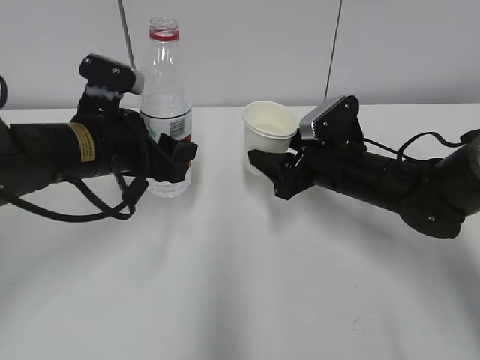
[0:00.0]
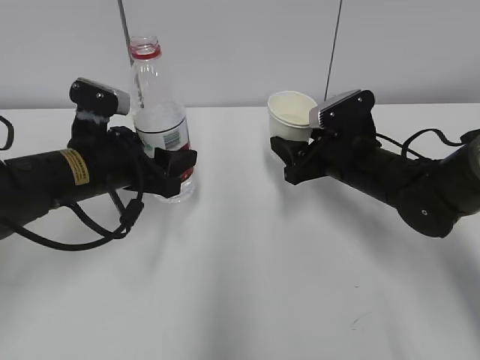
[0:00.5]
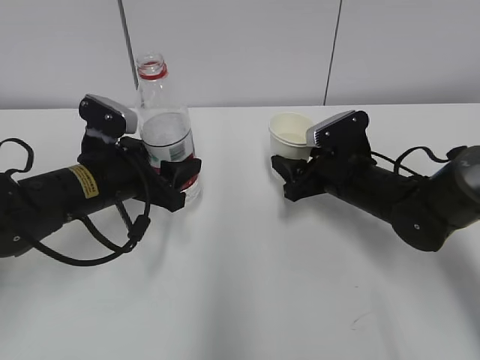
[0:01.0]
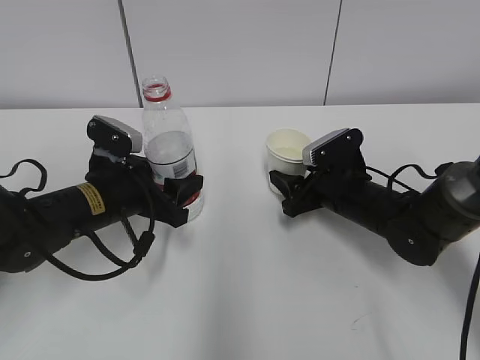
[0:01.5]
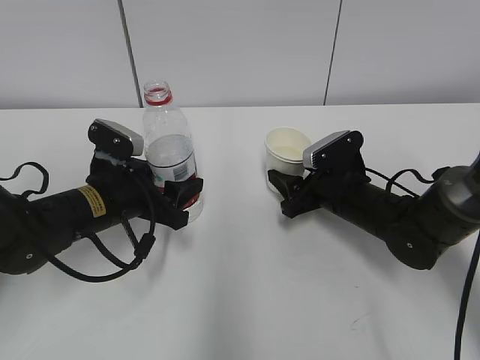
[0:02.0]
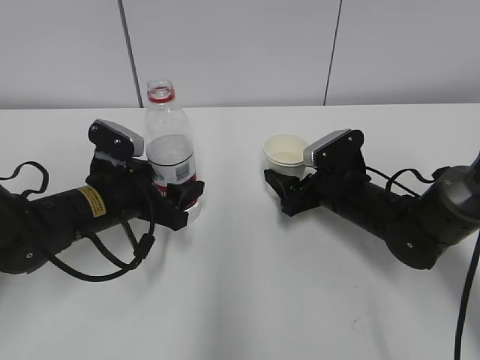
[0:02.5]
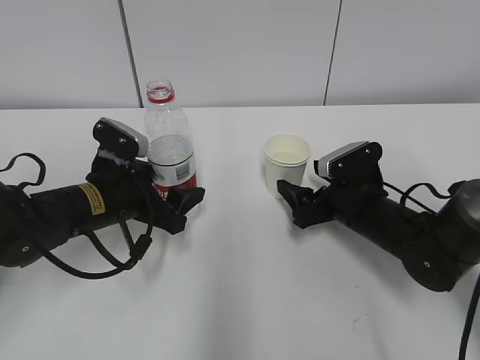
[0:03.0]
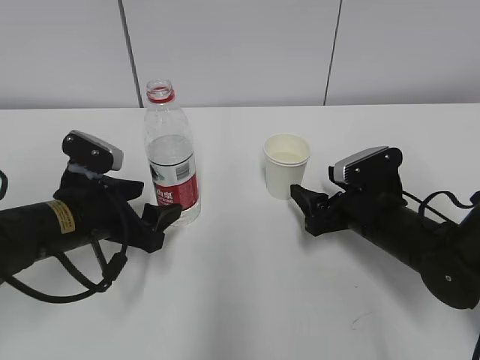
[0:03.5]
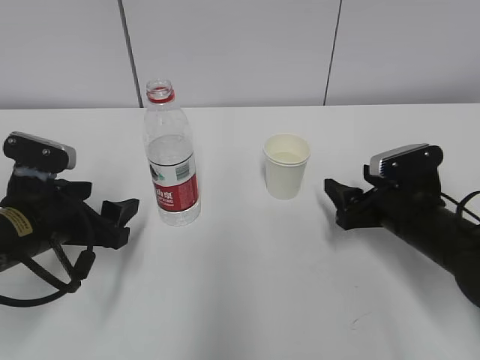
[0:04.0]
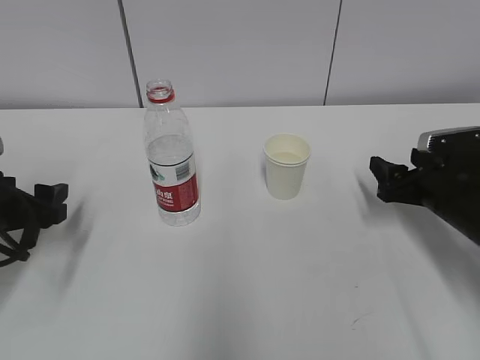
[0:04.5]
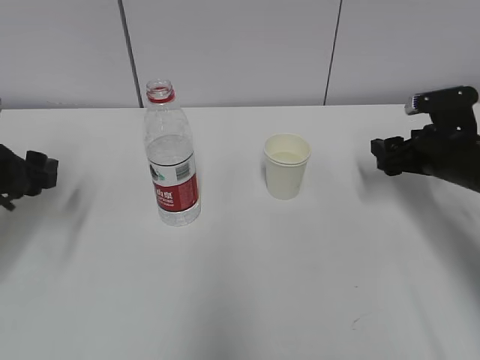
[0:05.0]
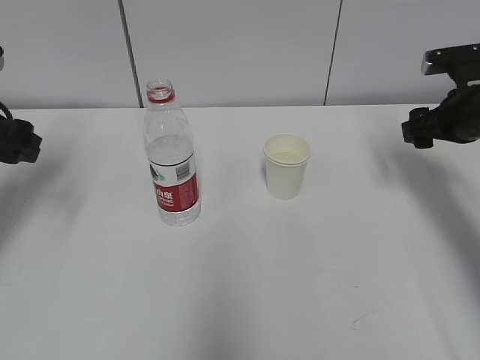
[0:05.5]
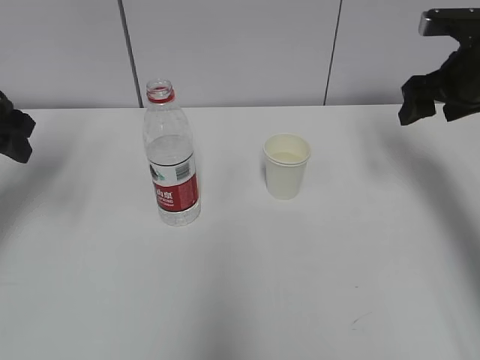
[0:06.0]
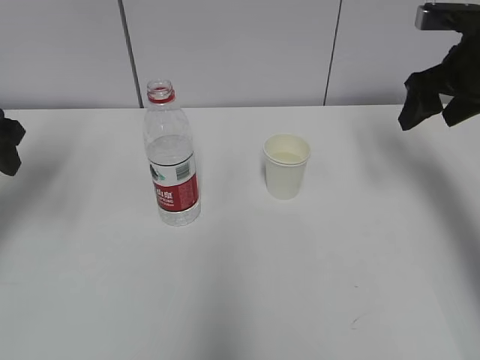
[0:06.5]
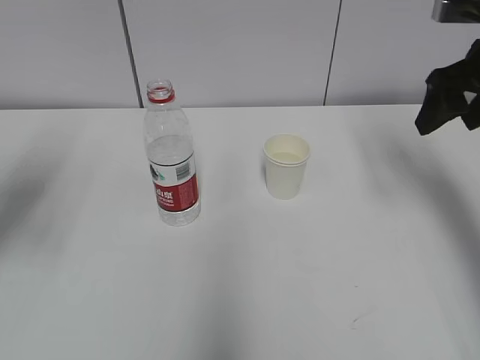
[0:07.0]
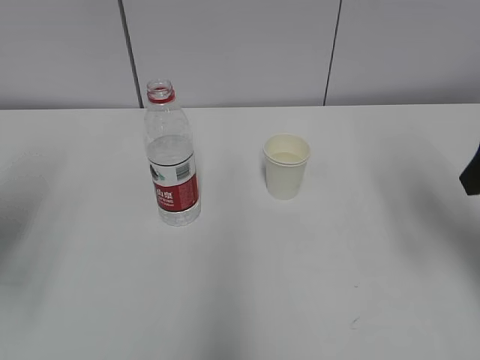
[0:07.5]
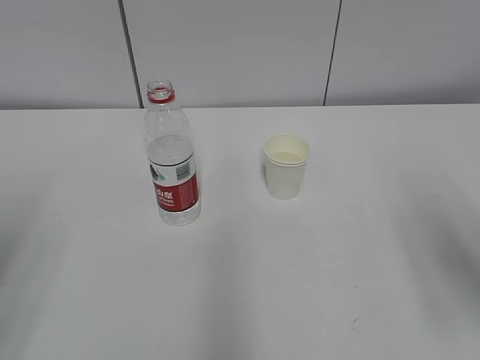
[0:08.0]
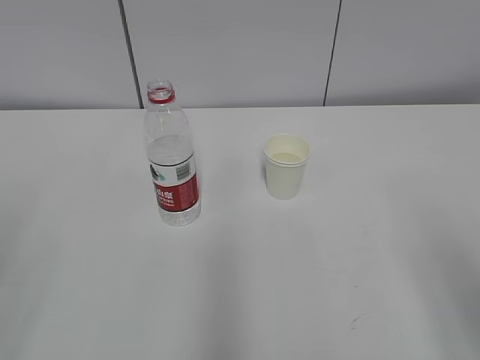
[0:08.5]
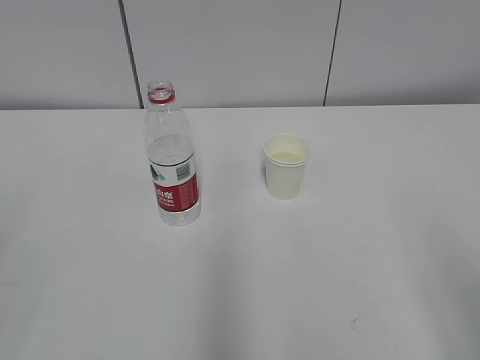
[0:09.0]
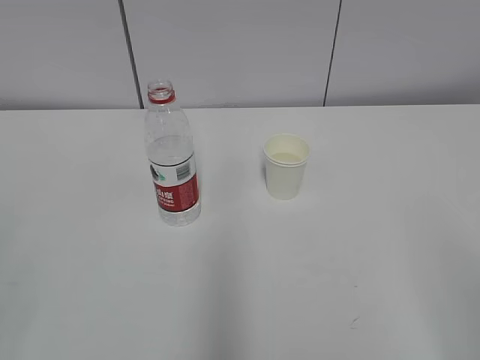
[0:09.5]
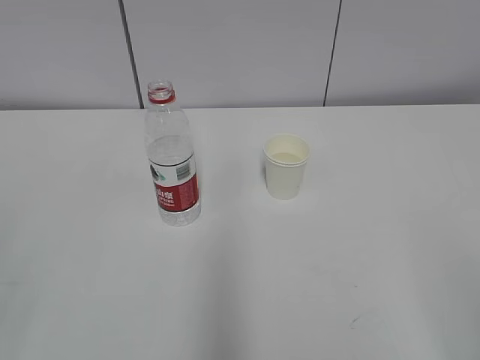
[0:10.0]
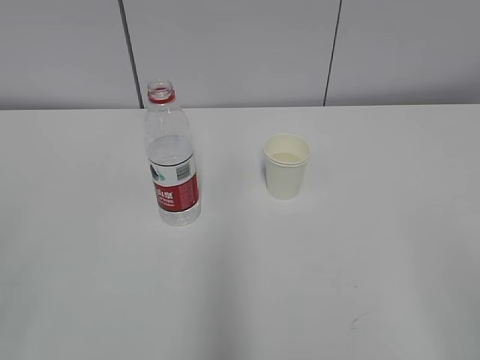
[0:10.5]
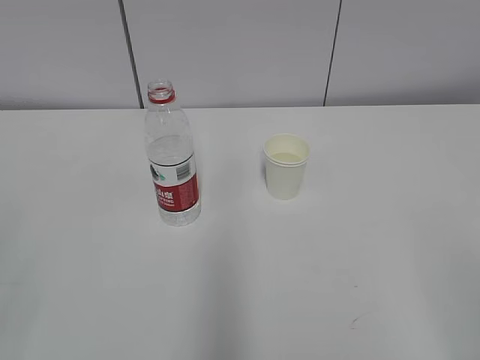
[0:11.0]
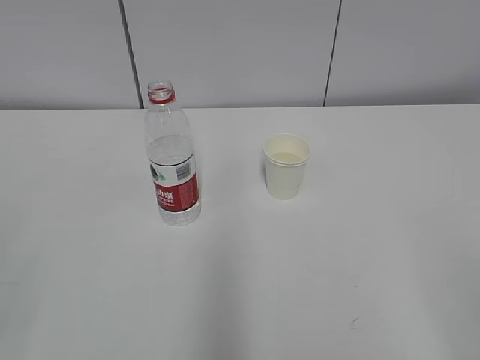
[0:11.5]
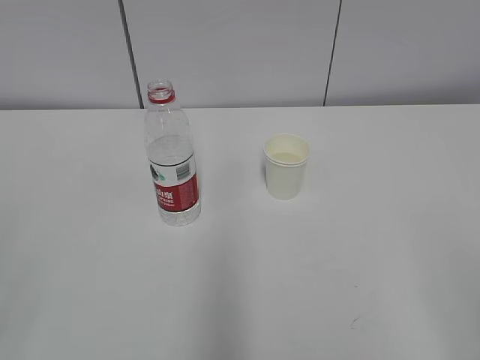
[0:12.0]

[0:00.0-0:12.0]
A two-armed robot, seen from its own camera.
0:00.0 to 0:02.0: The right gripper travels downward by approximately 5 cm; the left gripper heads downward, covering roughly 10 cm.
0:02.0 to 0:04.0: The left gripper goes roughly 10 cm backward and to the left, and opens. The right gripper travels backward by some 5 cm, and opens.
0:04.0 to 0:06.0: The left gripper heads upward, to the left and forward, covering some 20 cm. The right gripper travels upward, forward and to the right by about 20 cm.
0:06.0 to 0:08.0: The two grippers go approximately 20 cm backward.
0:08.0 to 0:10.0: The right gripper moves backward, about 20 cm.
0:10.0 to 0:12.0: Both grippers stay about where they are.

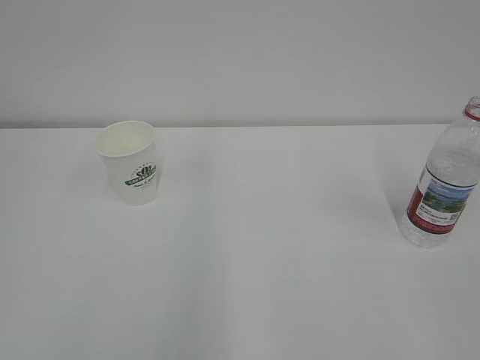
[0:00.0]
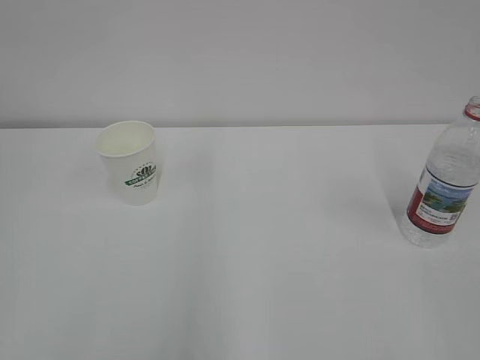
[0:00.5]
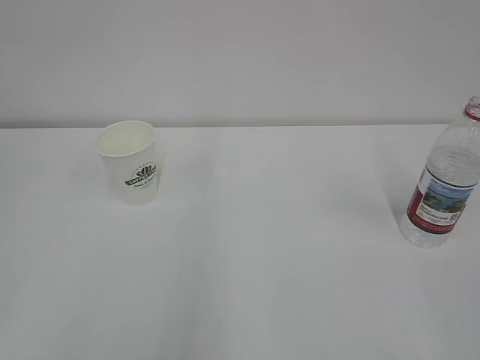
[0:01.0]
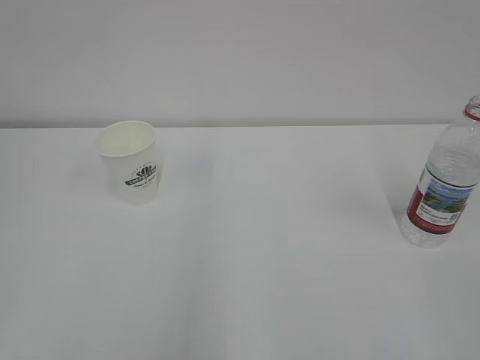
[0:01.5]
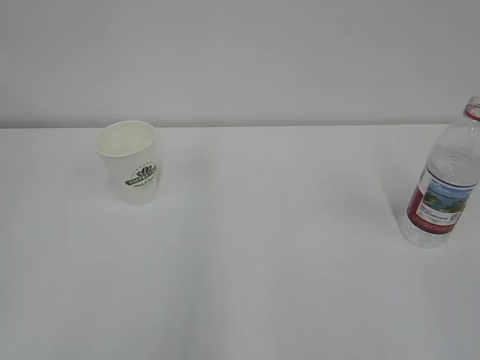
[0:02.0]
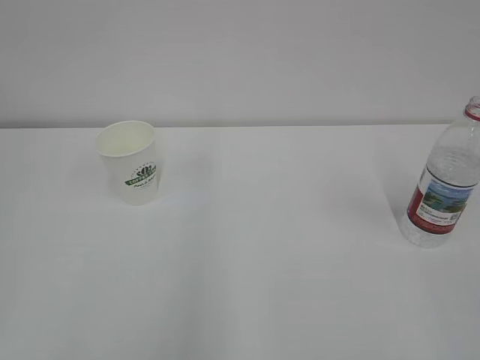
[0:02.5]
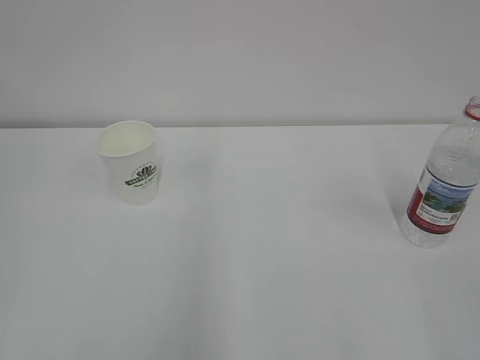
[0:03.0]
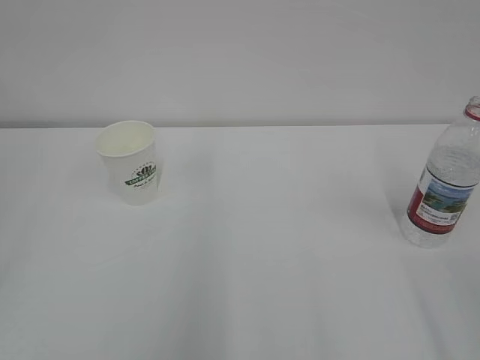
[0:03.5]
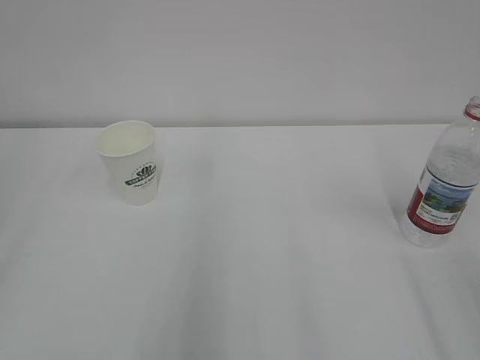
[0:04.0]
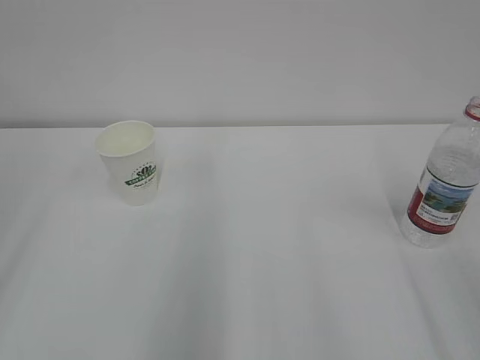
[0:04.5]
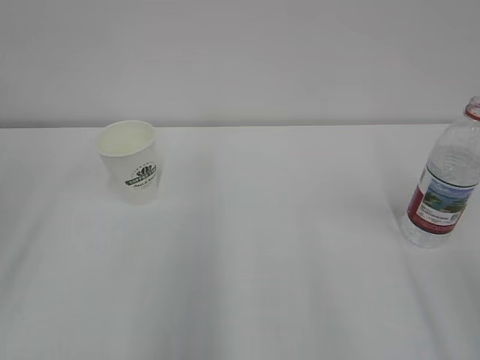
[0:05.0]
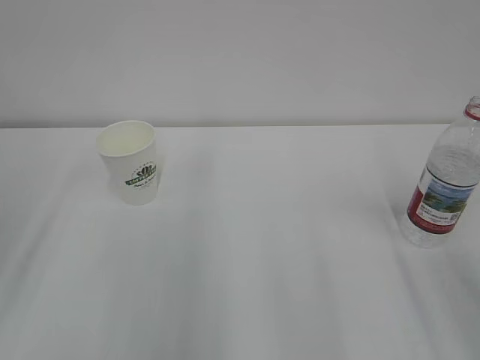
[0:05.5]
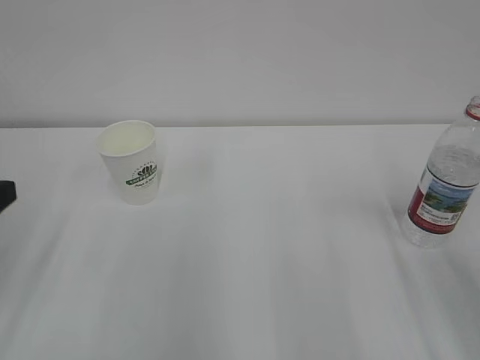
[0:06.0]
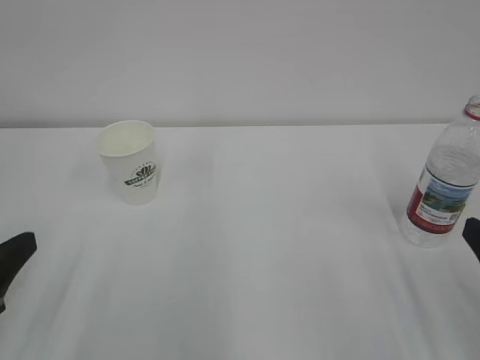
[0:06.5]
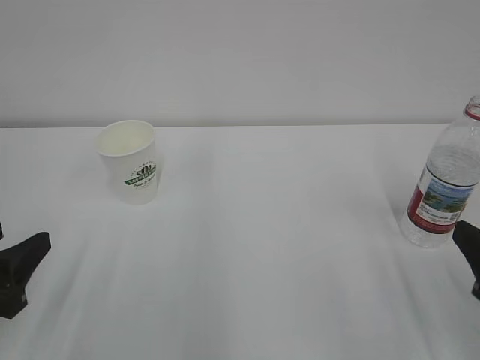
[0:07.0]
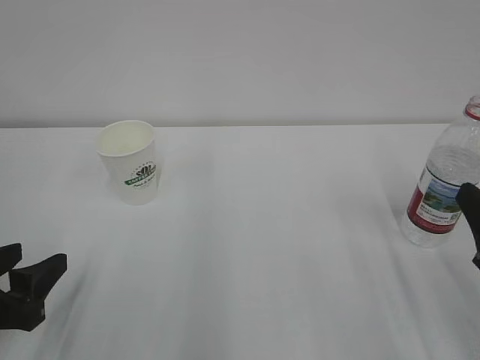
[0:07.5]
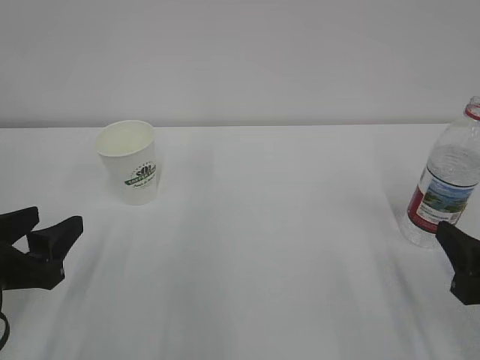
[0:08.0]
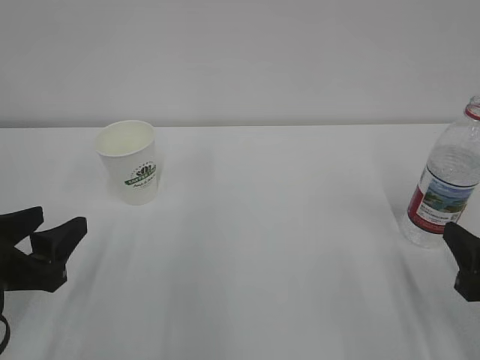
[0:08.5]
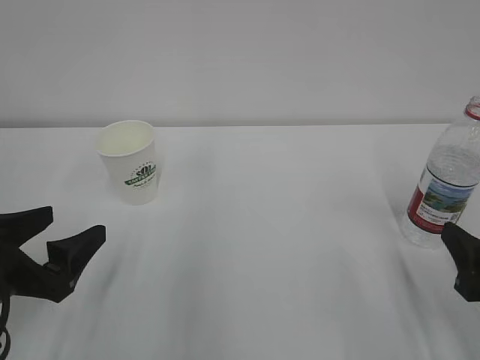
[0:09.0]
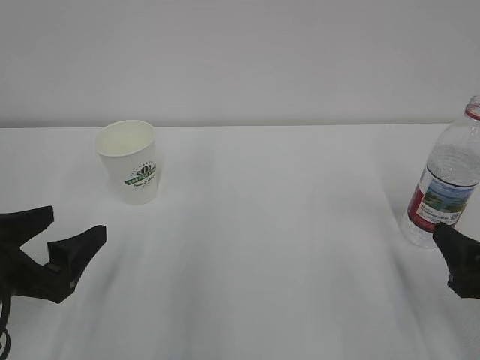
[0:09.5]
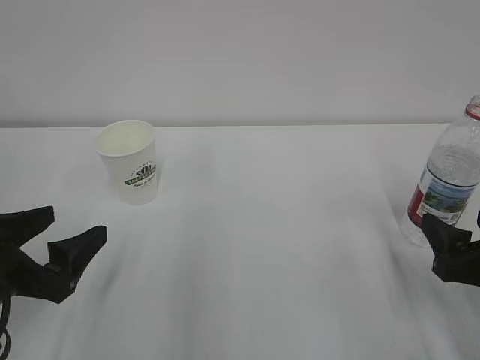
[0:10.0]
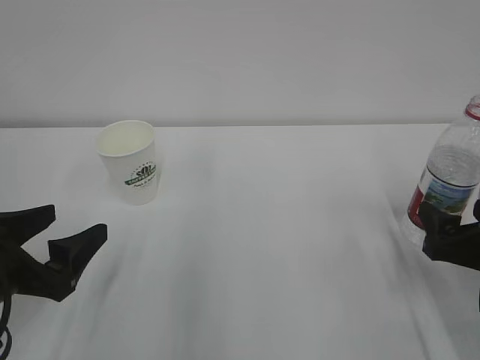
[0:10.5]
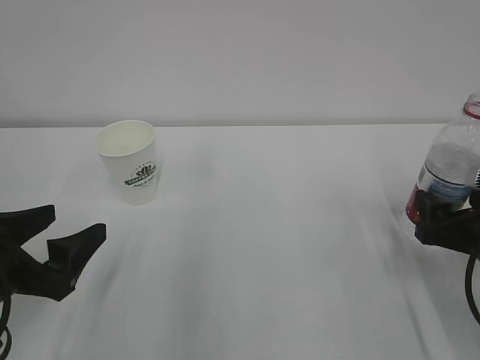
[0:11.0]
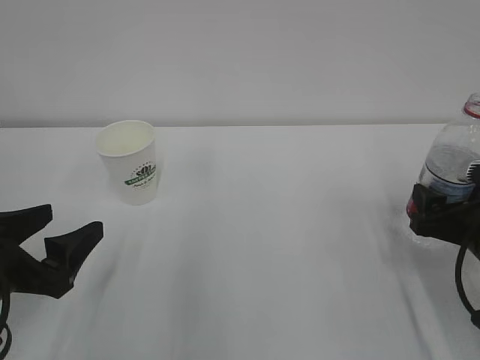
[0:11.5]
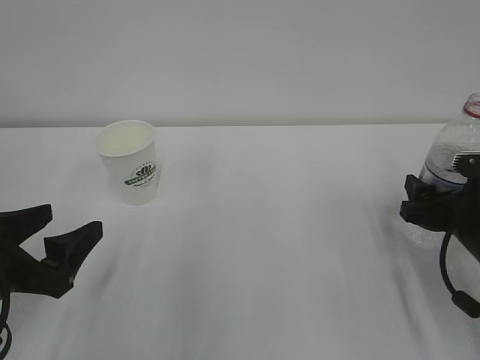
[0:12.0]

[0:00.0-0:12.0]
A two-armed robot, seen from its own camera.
0:06.0 to 0:08.0: Both grippers move downward, approximately 10 cm.
0:08.0 to 0:10.0: The left gripper opens its fingers. The right gripper opens.
0:10.0 to 0:12.0: The right gripper travels forward by about 10 cm.

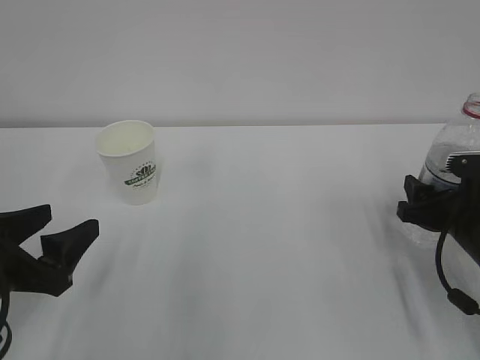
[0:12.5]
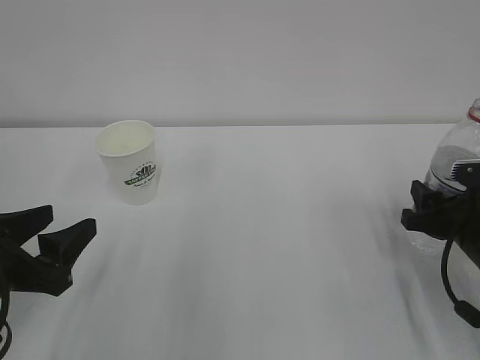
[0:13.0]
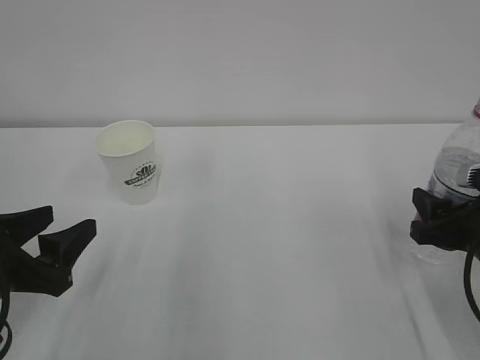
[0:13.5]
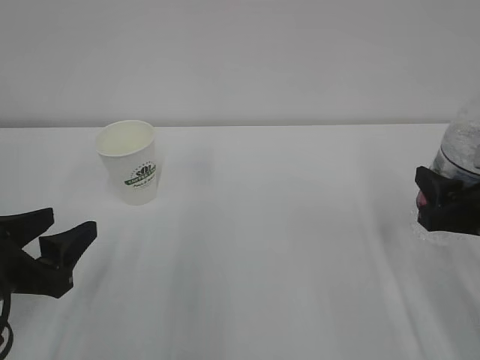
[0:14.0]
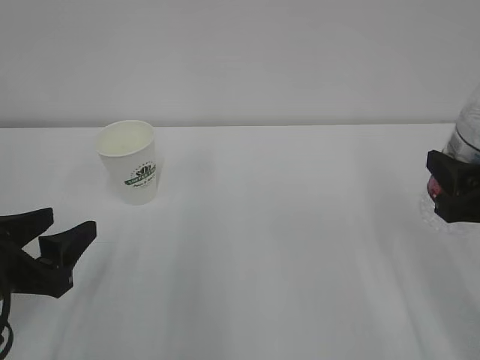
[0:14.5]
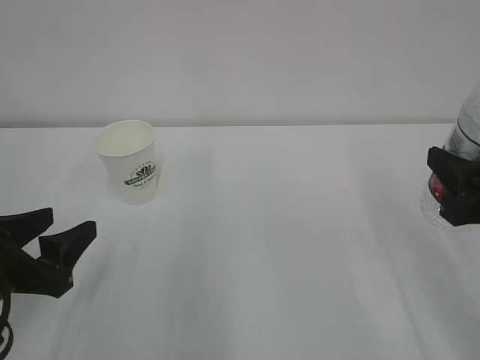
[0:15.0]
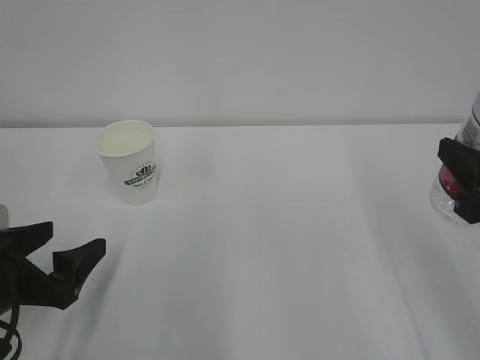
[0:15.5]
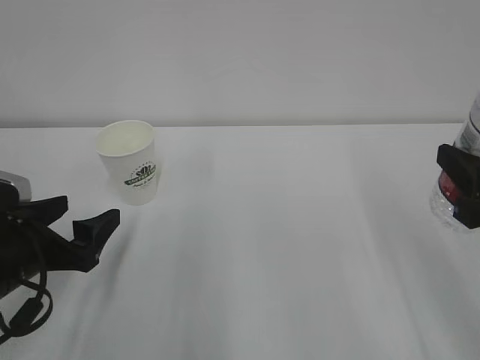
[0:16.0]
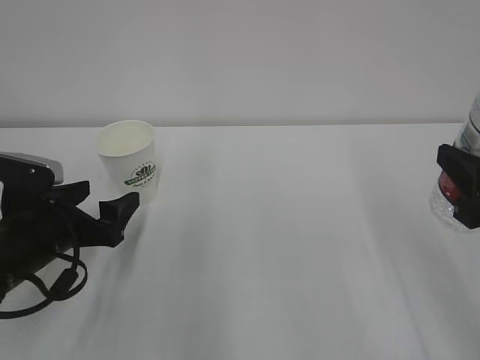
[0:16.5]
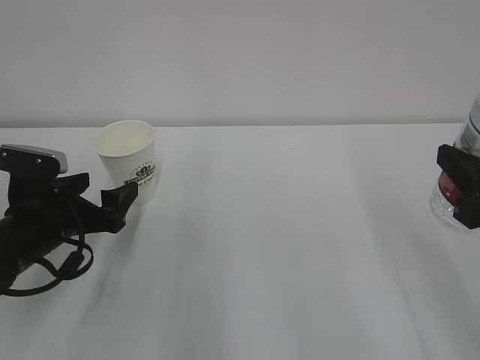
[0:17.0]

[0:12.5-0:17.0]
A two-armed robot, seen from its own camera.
0:12.5 to 0:14.5: The right gripper heads upward and backward, covering some 10 cm, and closes its fingers.
0:14.5 to 0:17.0: The left gripper is displaced forward by about 10 cm, and opens up.
